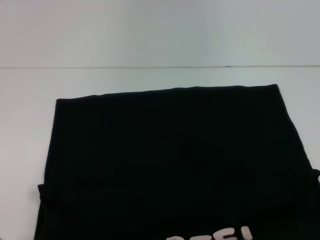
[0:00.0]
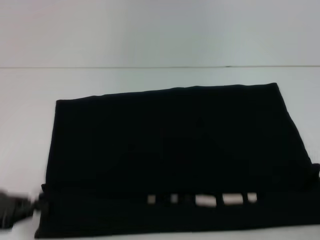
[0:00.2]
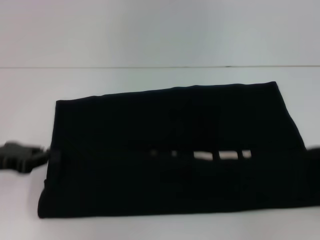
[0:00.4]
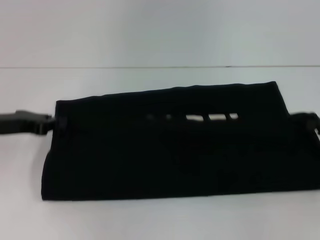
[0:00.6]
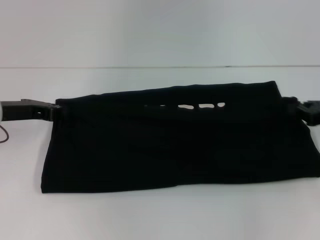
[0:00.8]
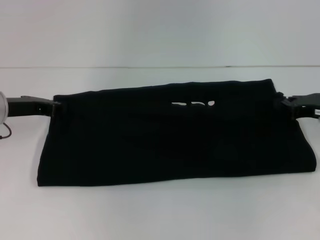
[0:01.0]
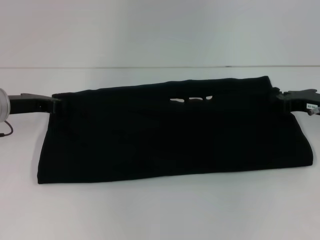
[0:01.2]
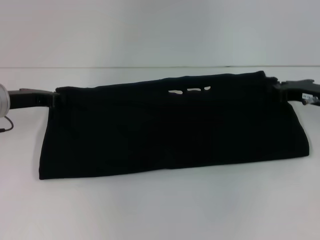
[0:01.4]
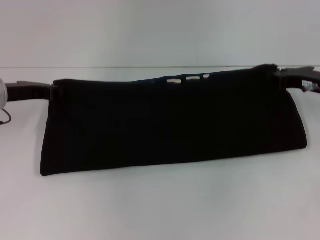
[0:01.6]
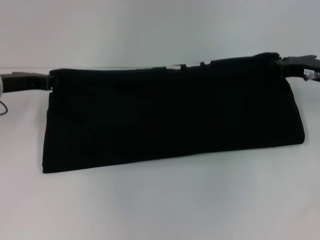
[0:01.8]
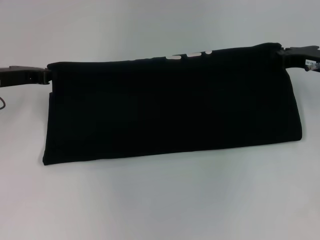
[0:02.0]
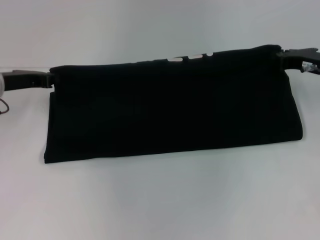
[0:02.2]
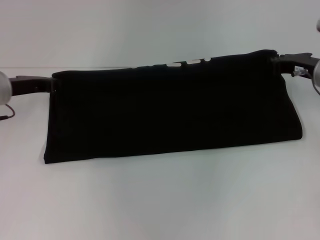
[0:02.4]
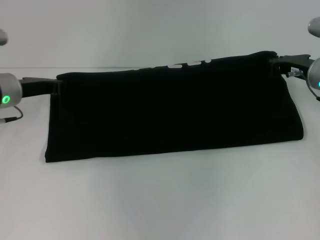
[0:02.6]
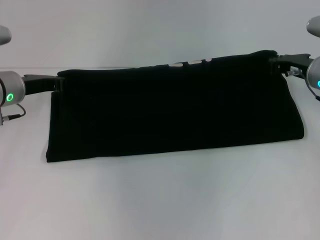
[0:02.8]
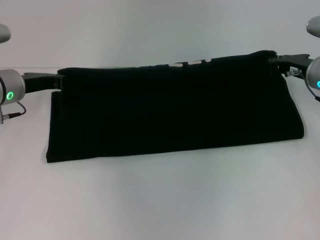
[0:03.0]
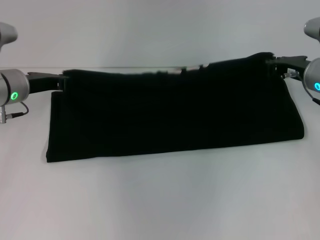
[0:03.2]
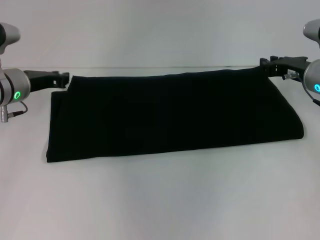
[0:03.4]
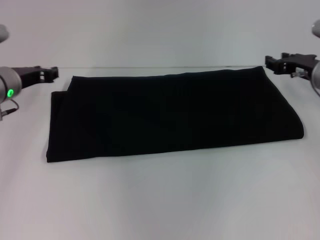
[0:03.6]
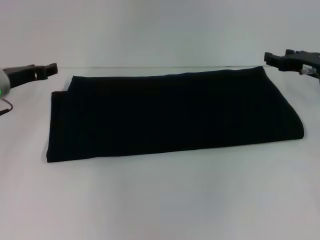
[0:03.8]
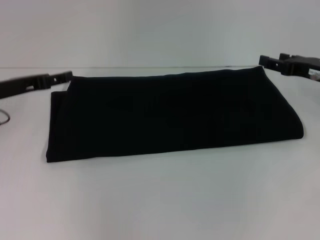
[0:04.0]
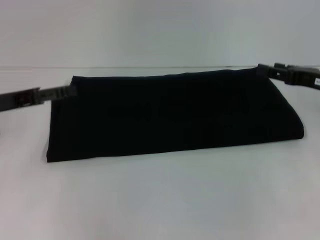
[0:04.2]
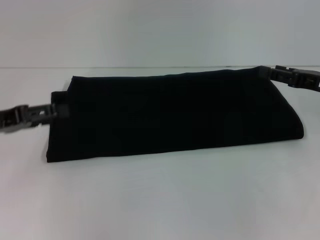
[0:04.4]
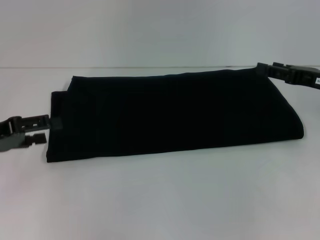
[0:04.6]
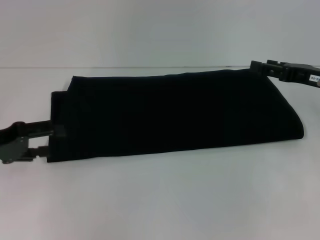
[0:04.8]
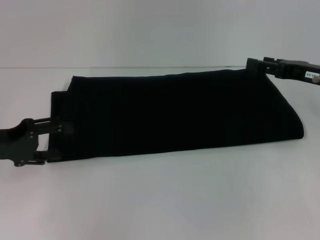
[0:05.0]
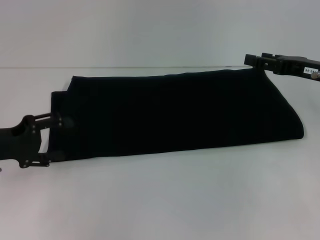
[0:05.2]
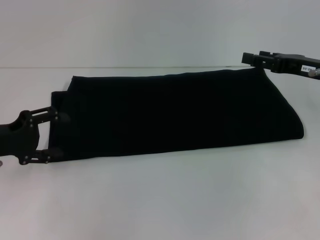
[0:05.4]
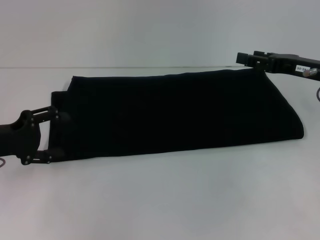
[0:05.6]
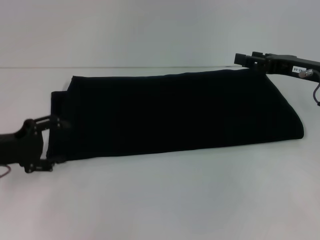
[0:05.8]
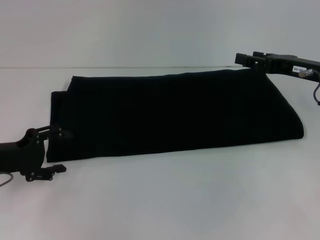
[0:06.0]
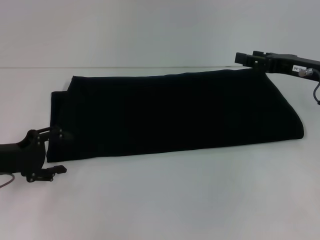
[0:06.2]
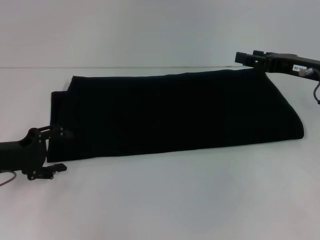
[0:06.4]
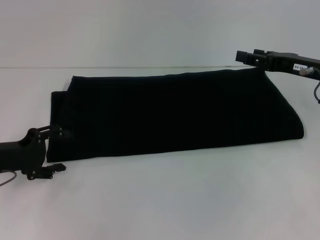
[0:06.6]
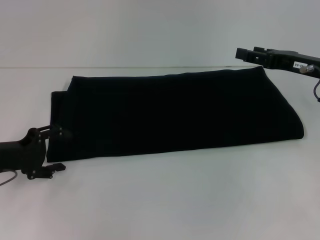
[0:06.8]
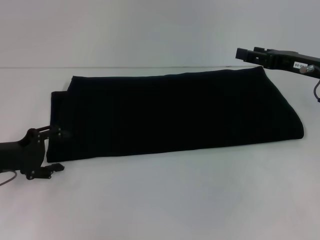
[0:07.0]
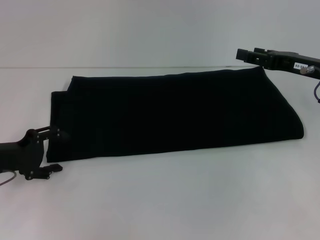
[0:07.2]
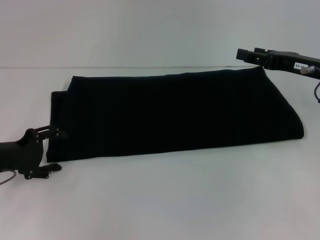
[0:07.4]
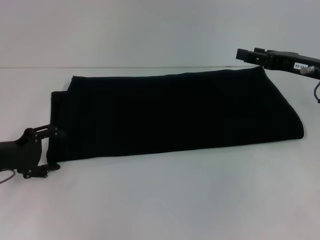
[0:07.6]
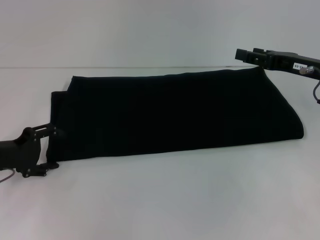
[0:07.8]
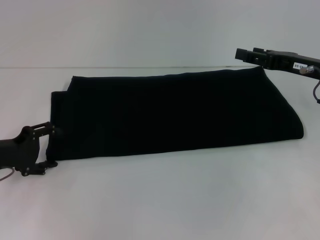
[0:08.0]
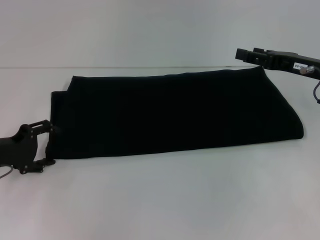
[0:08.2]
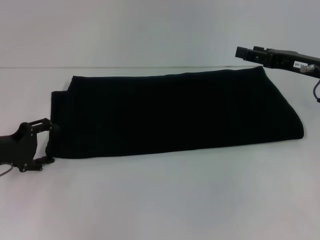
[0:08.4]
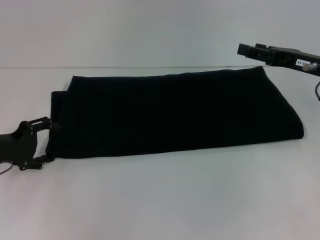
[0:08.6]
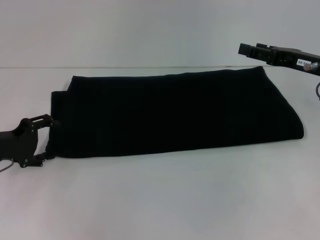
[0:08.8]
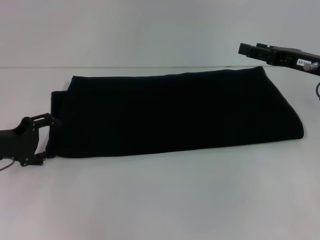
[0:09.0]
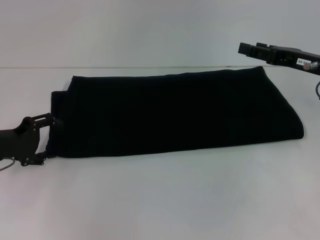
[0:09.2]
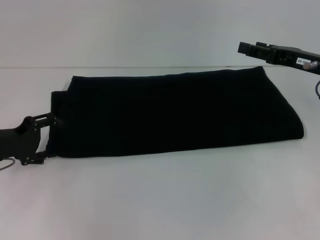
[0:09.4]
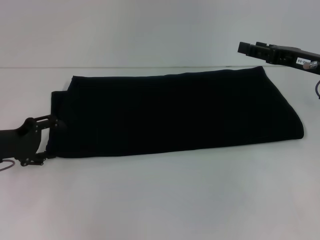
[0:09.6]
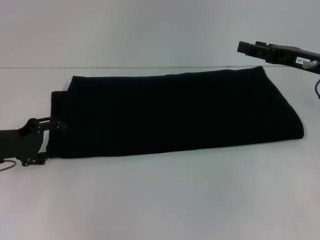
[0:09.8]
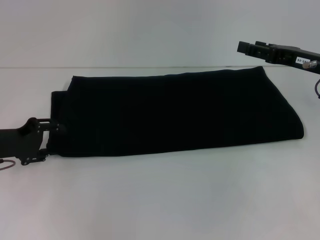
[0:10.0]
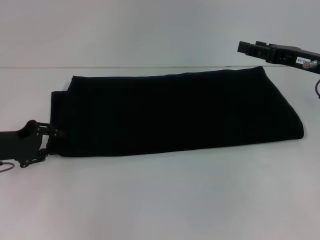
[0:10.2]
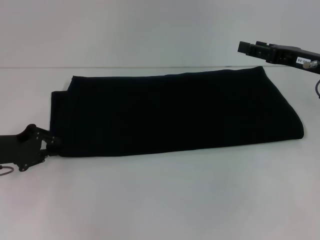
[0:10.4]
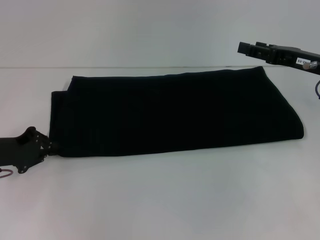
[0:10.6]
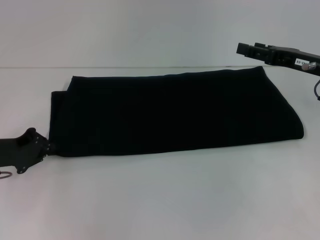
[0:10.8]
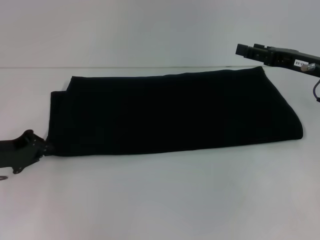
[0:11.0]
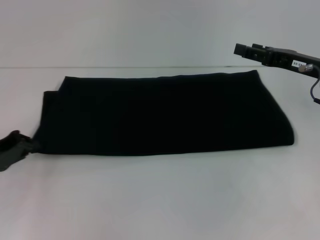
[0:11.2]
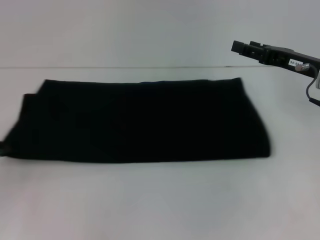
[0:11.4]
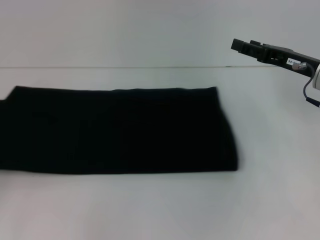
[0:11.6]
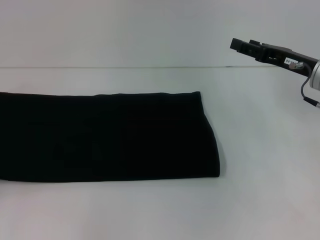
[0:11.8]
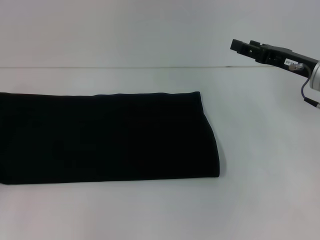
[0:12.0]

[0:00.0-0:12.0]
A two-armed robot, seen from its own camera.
Step, 0:00.0 to 0:04.2: Fold the clothes with your right hand.
0:00.0 to 0:01.6: The two grippers go approximately 25 cm forward.
0:01.6 to 0:03.0: The grippers move only a little.
0:03.0 to 0:04.4: The left gripper travels backward and to the left by about 10 cm, and opens its fingers, while the right gripper moves backward and to the right, some 10 cm, and opens.
0:04.4 to 0:06.0: The left gripper travels downward by about 5 cm.
0:06.0 to 0:09.0: The grippers move only a little.
0:09.0 to 0:10.4: The left gripper closes.
0:10.4 to 0:12.0: The left gripper moves to the left and backward, approximately 15 cm, and closes its fingers.

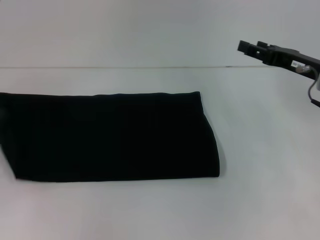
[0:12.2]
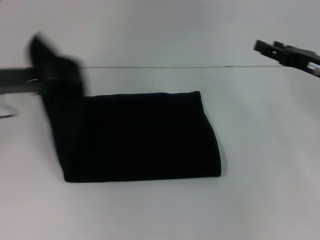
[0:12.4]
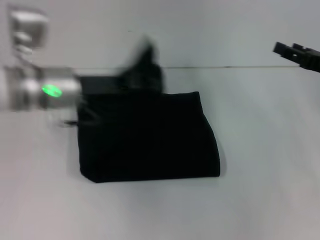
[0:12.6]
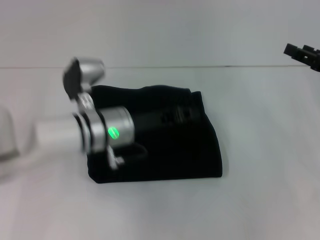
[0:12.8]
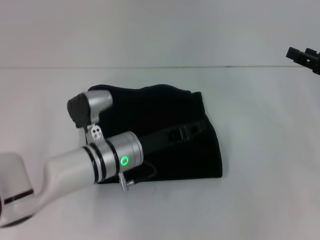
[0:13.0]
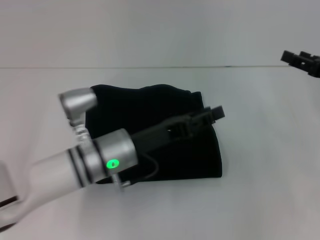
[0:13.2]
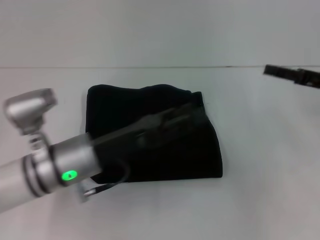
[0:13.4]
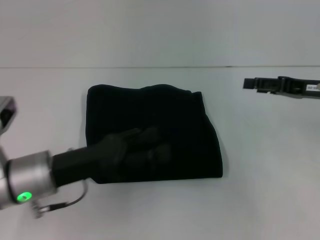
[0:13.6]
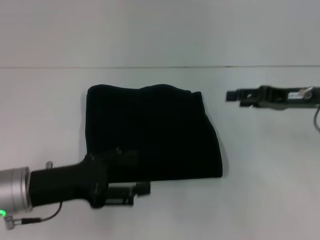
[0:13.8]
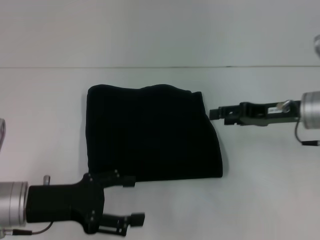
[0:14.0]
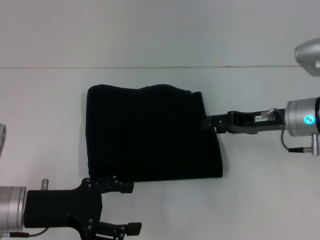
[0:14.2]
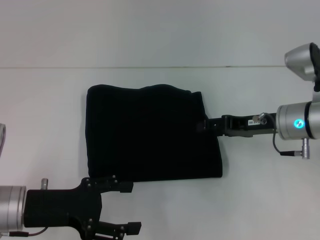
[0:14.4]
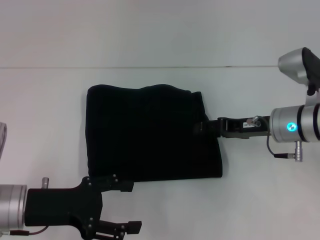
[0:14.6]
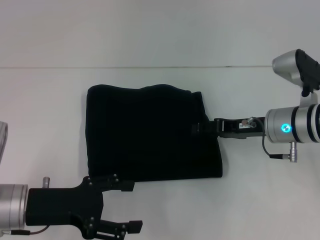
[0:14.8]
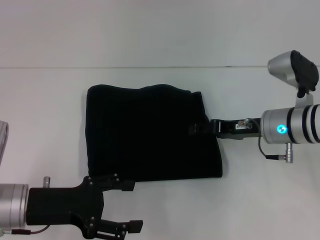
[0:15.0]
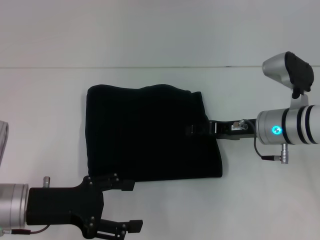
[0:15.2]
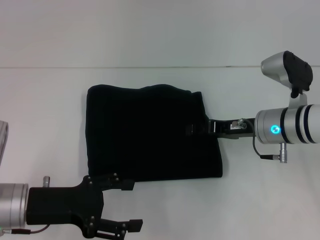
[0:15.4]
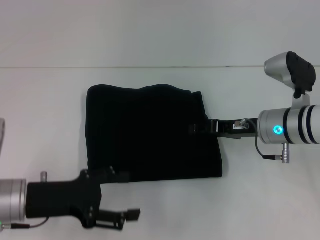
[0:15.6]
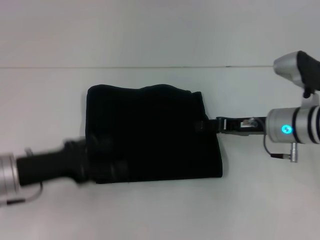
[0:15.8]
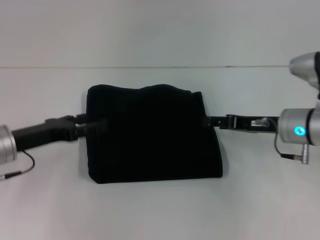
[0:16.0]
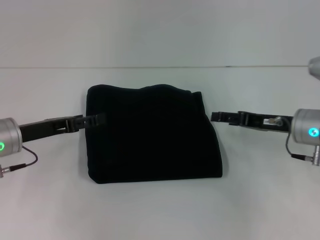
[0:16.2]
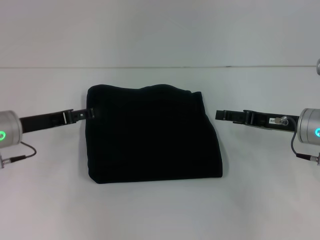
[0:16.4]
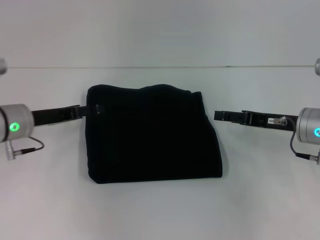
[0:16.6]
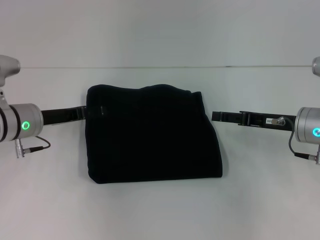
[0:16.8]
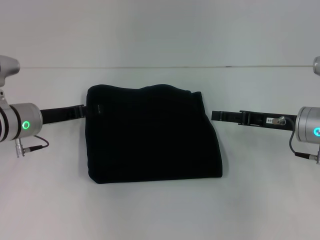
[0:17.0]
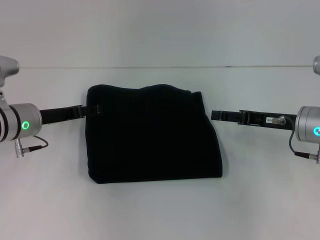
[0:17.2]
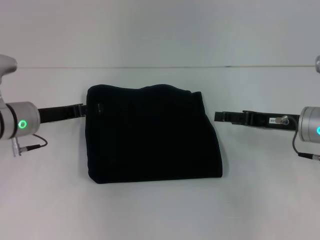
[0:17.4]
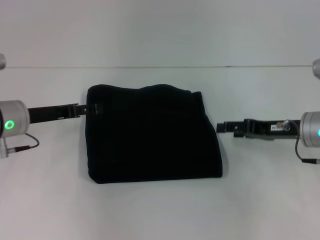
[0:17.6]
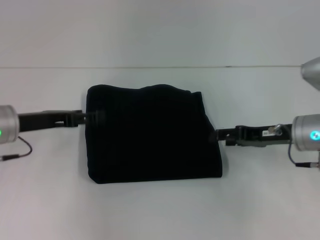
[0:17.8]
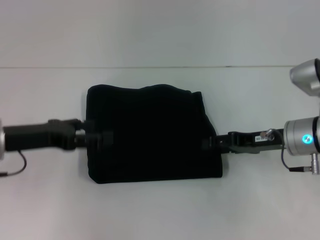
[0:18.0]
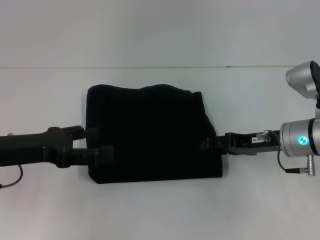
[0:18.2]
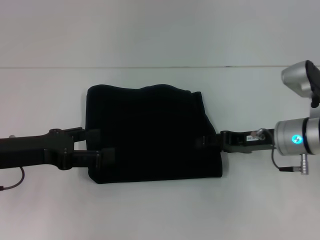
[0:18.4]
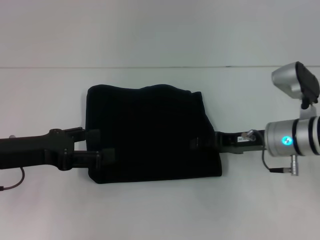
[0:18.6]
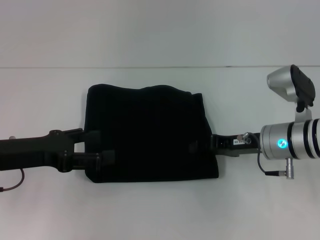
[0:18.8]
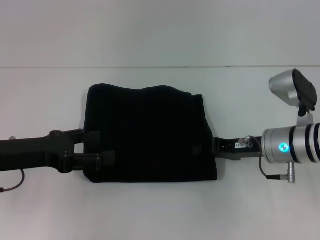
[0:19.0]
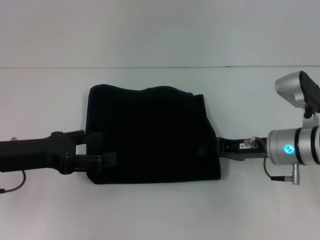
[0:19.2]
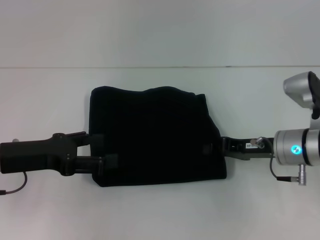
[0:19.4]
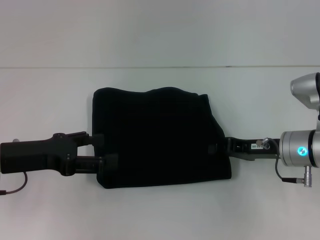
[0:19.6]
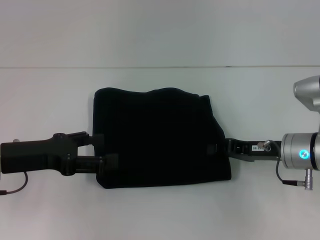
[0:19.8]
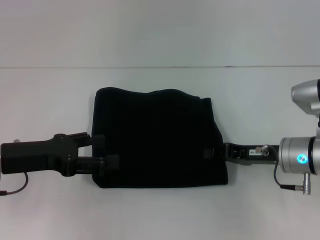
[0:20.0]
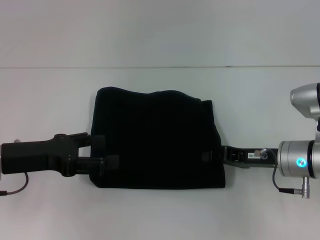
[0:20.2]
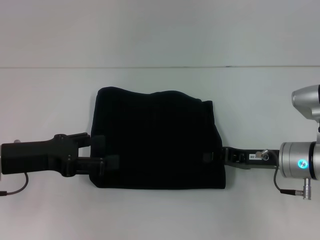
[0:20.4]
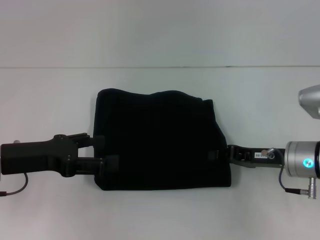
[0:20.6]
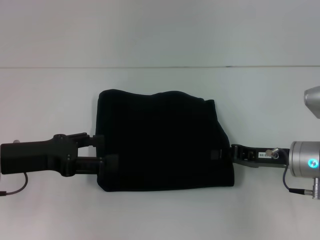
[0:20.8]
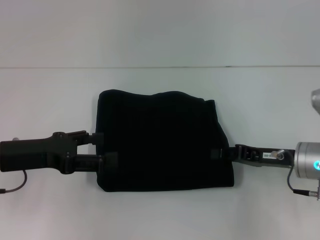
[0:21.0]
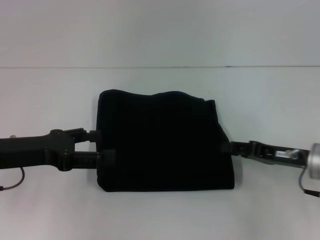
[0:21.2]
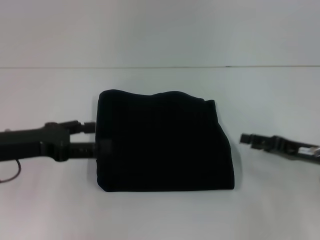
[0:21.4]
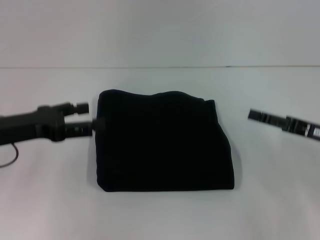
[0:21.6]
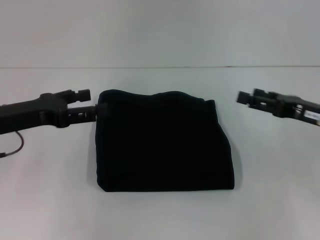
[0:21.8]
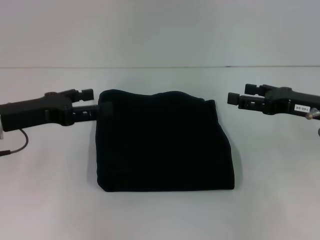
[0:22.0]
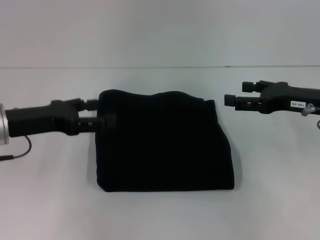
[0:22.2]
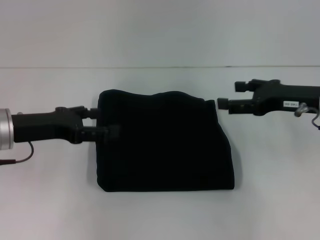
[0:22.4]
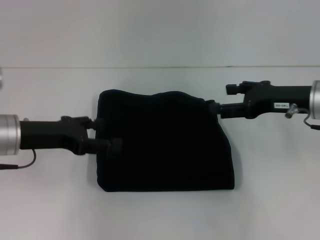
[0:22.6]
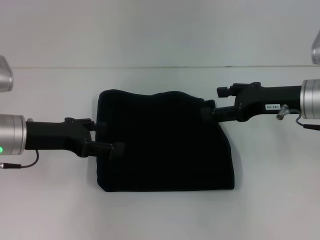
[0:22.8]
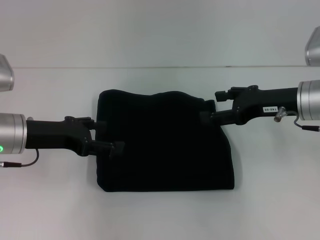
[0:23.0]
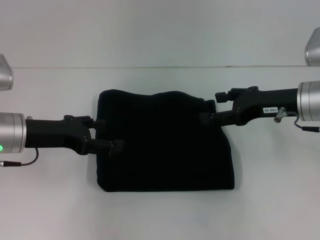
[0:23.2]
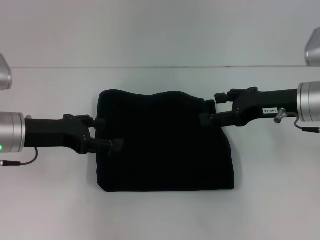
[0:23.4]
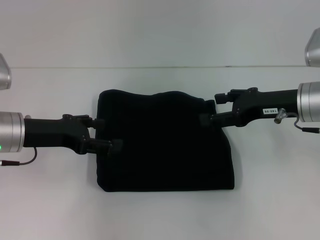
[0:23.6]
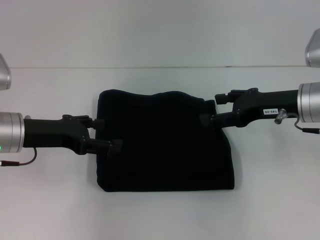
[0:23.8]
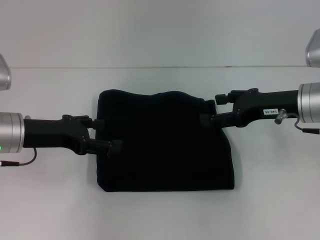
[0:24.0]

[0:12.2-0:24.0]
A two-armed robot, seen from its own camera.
0:12.2 to 0:13.6: The left gripper goes about 20 cm to the right, and opens its fingers.
0:13.6 to 0:15.2: The right gripper moves to the left and downward, about 10 cm.
0:15.2 to 0:16.6: The right gripper travels to the right by about 5 cm. The left gripper moves forward, some 10 cm.
0:16.6 to 0:18.2: The left gripper moves backward, approximately 10 cm.
0:18.2 to 0:19.6: The right gripper closes its fingers.
0:19.6 to 0:21.0: The grippers stay close to where they were, moving slightly.
0:21.0 to 0:22.6: The right gripper moves upward, roughly 10 cm, and opens its fingers.
0:22.6 to 0:24.0: There are only small adjustments of the grippers.
